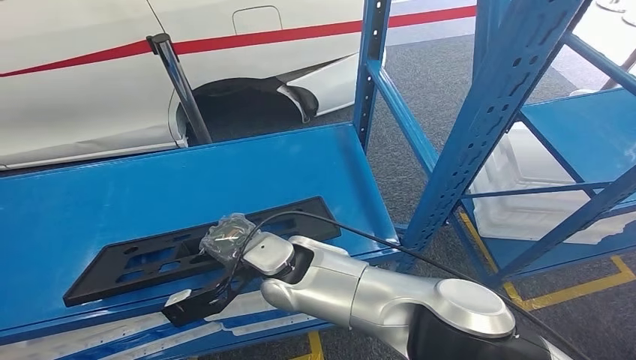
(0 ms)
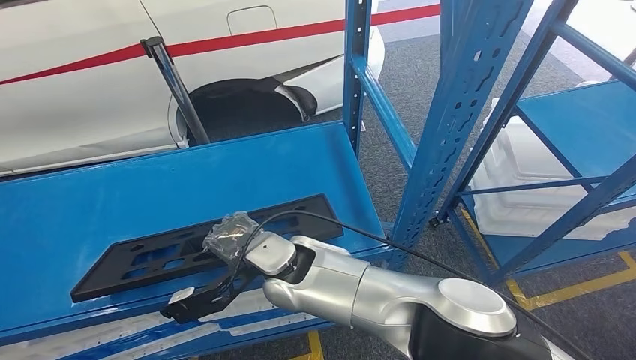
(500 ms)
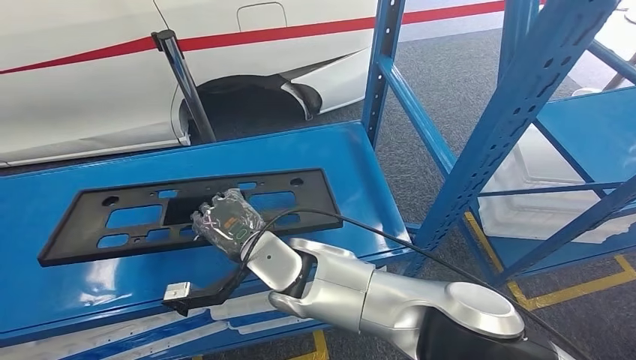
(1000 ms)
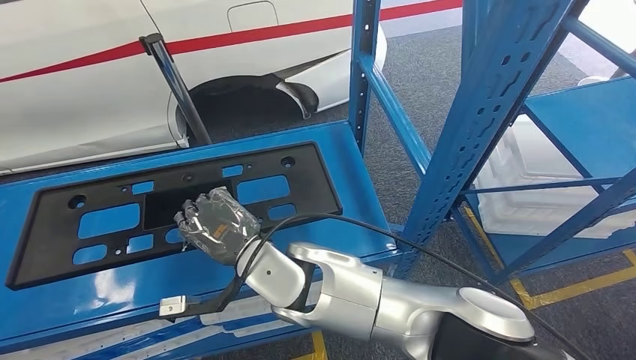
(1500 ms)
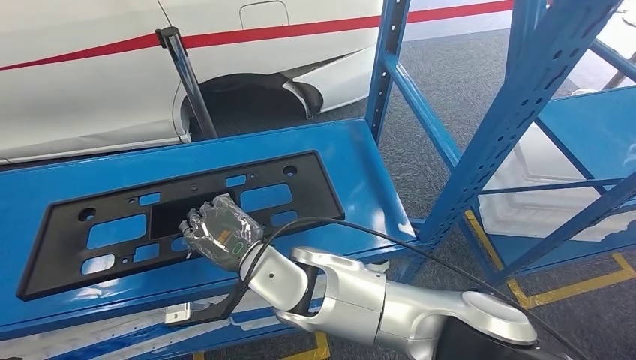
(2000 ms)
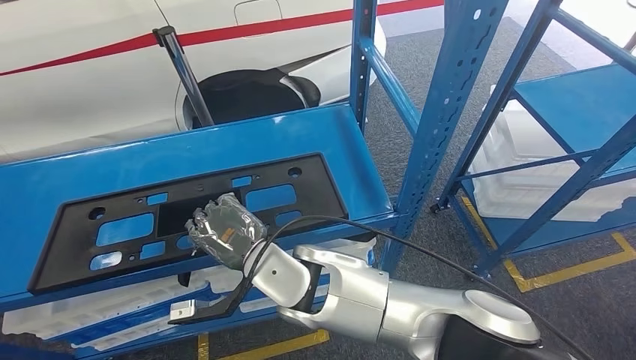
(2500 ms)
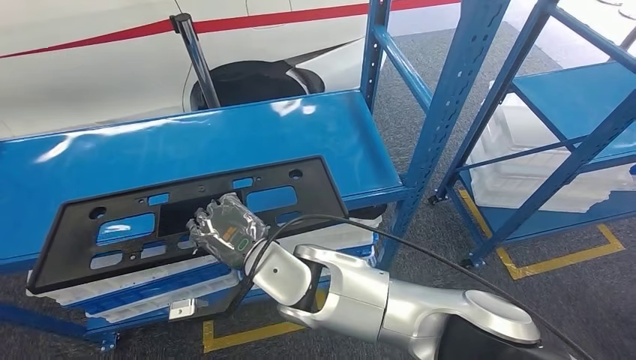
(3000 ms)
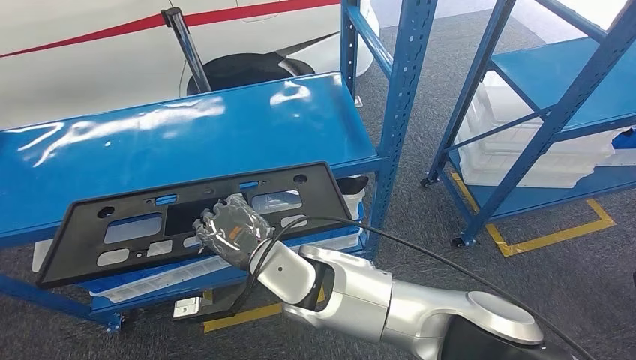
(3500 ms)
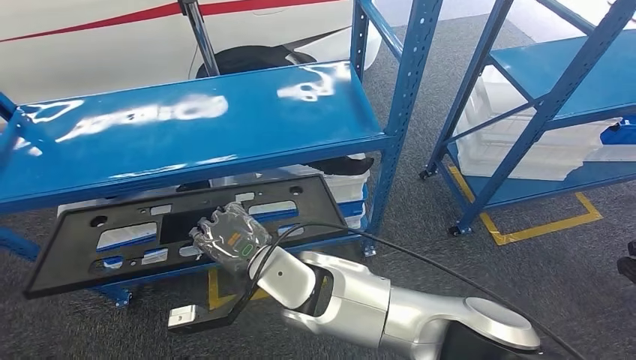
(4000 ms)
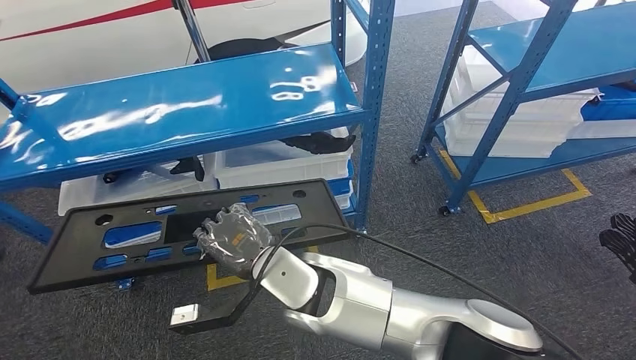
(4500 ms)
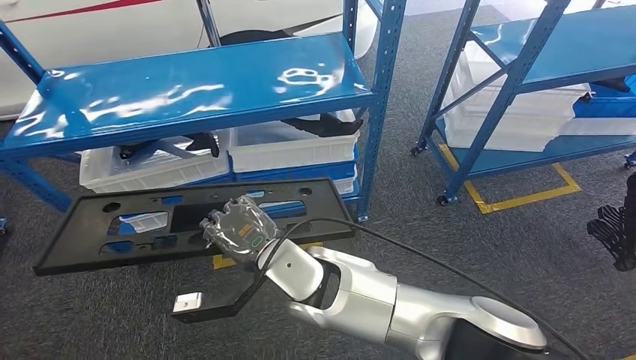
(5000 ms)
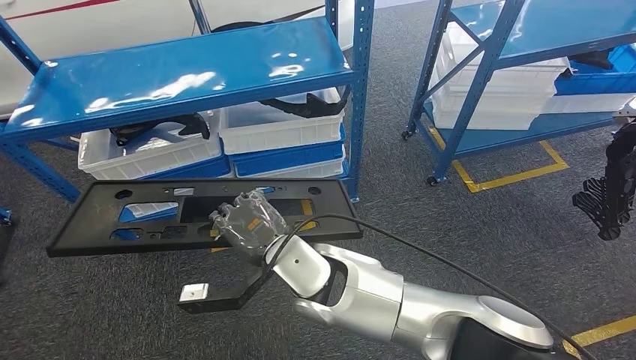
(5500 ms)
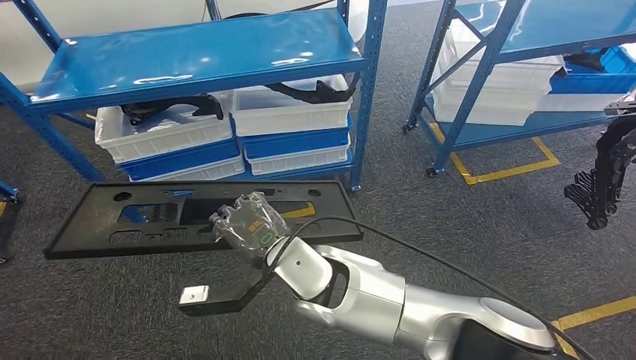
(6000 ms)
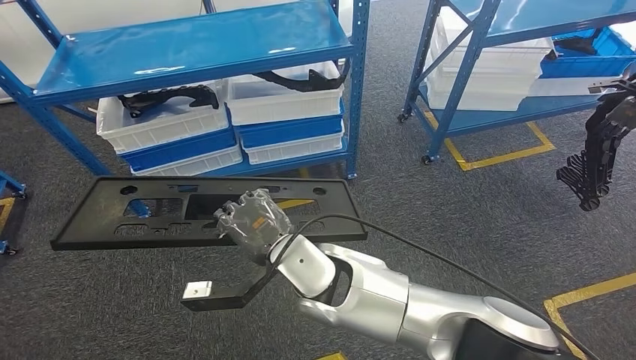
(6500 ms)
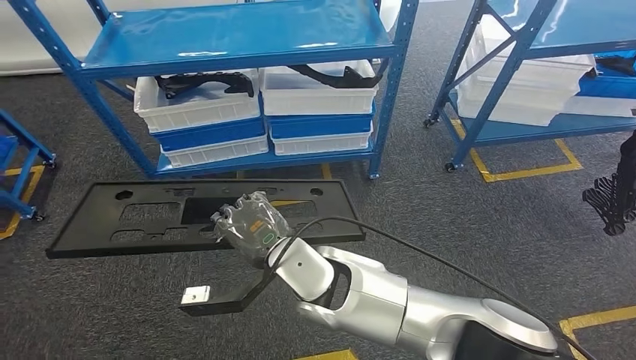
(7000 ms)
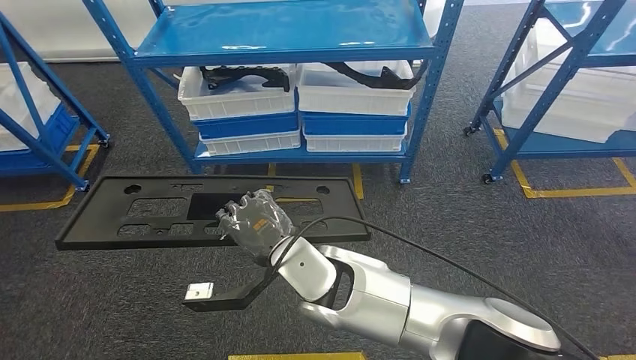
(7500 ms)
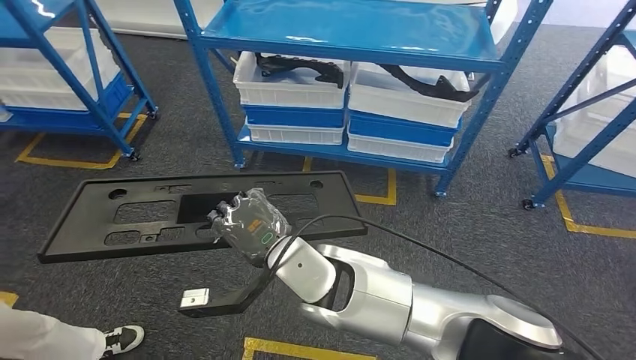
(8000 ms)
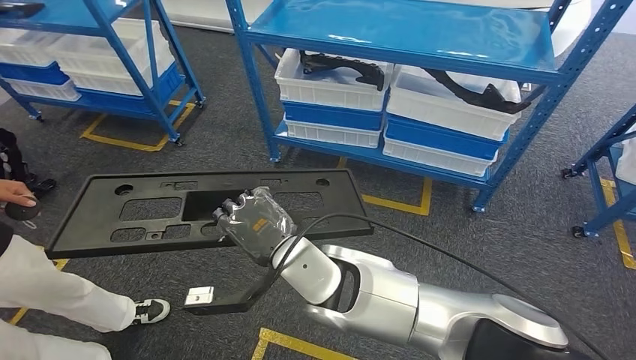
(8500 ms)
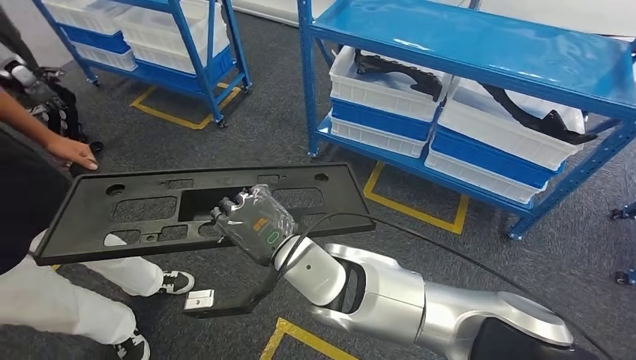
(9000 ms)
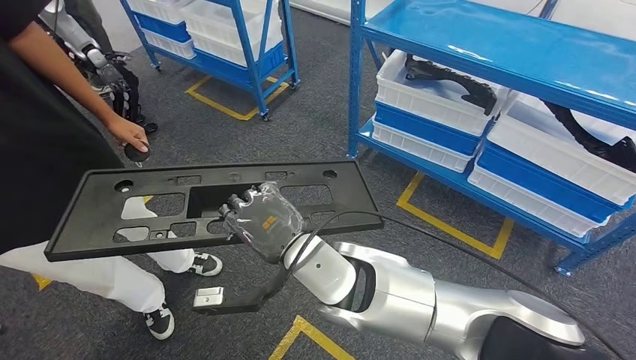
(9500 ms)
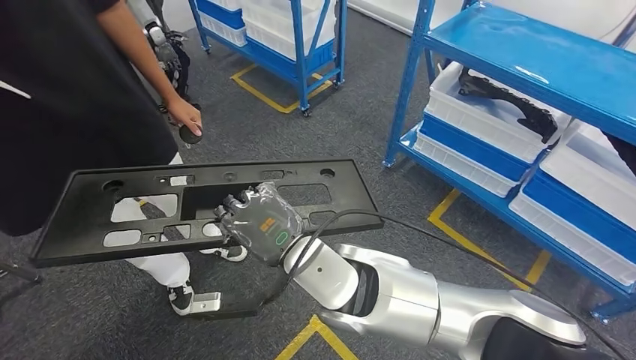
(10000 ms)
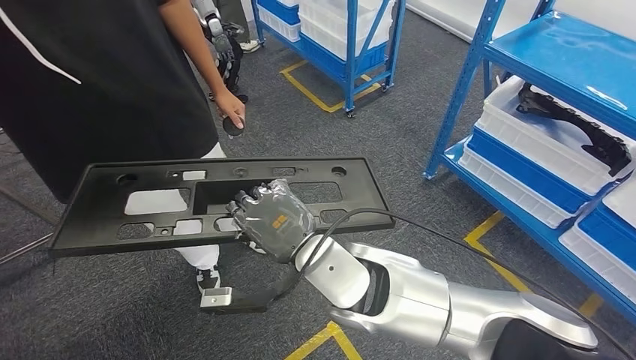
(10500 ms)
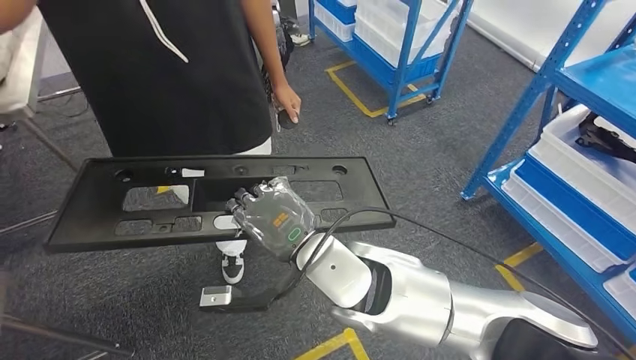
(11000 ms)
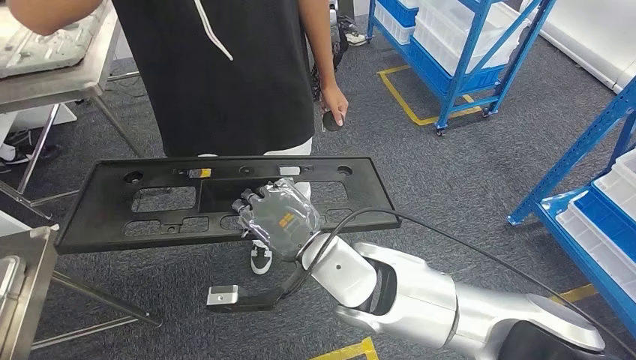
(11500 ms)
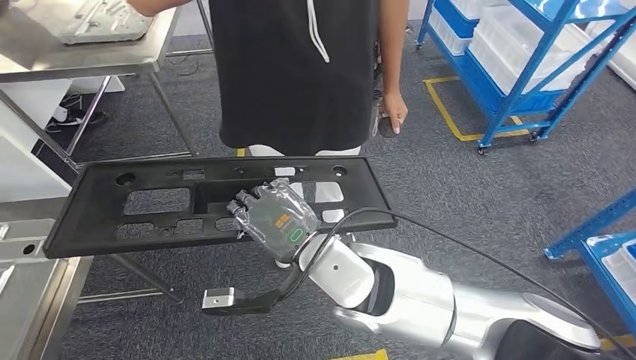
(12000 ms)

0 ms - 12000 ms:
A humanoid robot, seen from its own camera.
Step, 0 ms - 2000 ms: Pick up the large material from the shelf.

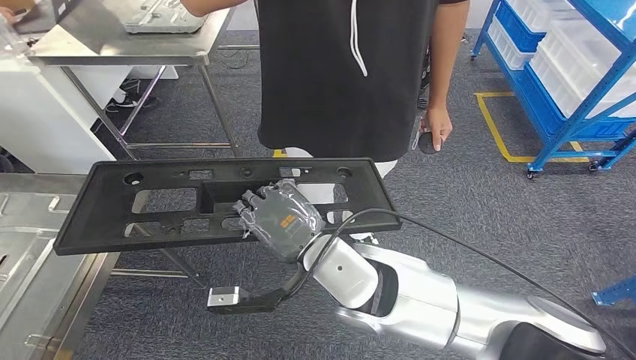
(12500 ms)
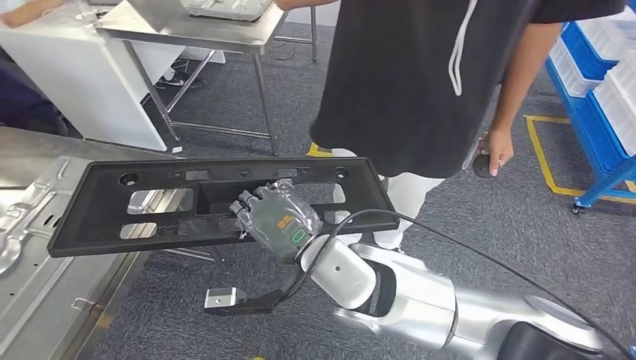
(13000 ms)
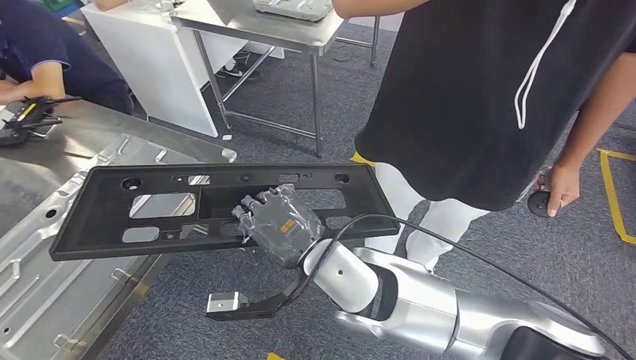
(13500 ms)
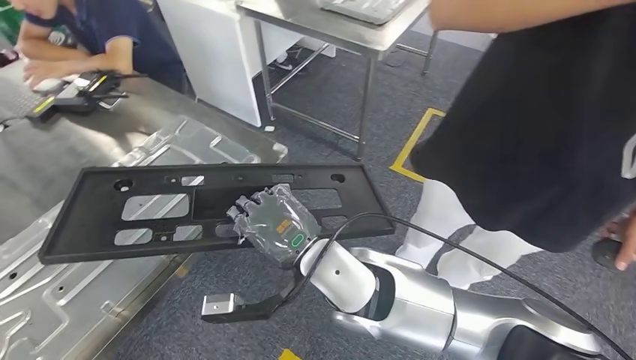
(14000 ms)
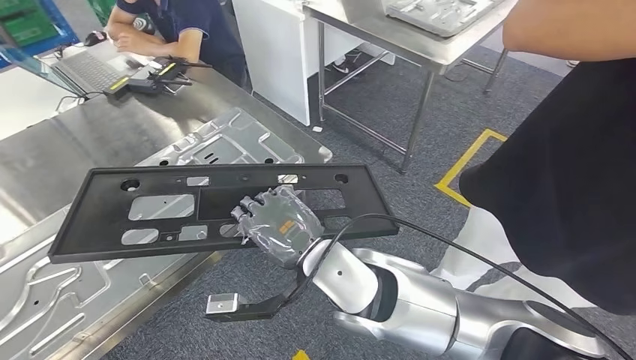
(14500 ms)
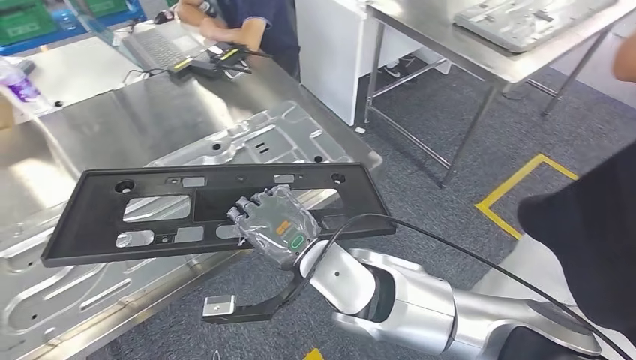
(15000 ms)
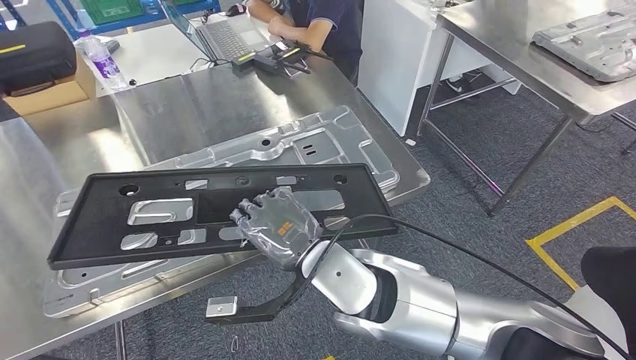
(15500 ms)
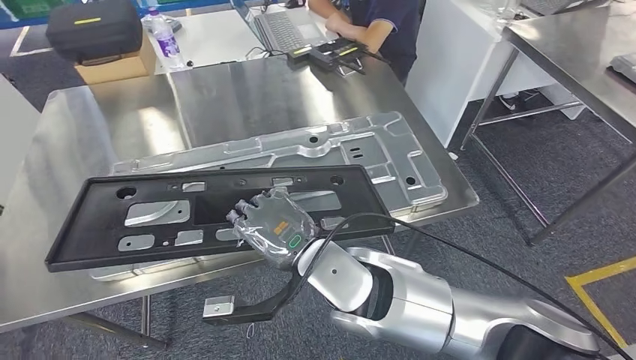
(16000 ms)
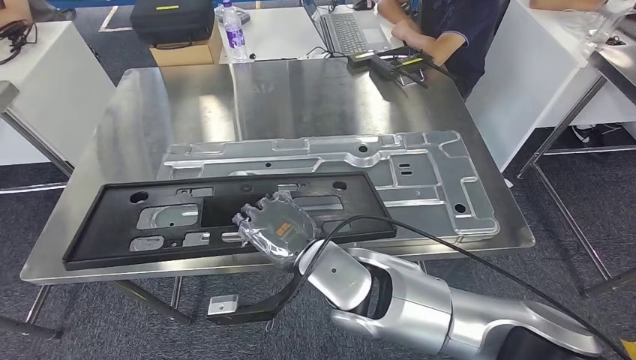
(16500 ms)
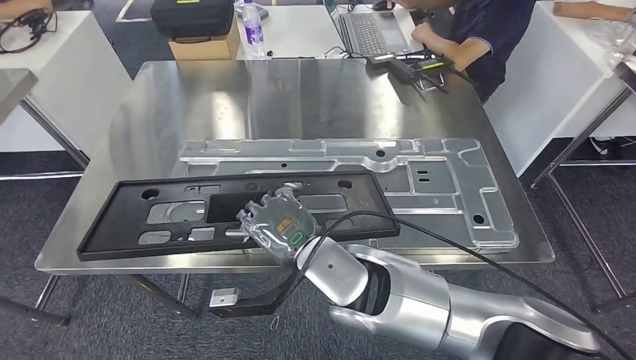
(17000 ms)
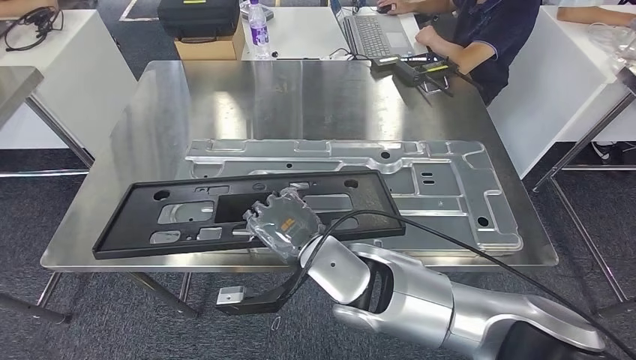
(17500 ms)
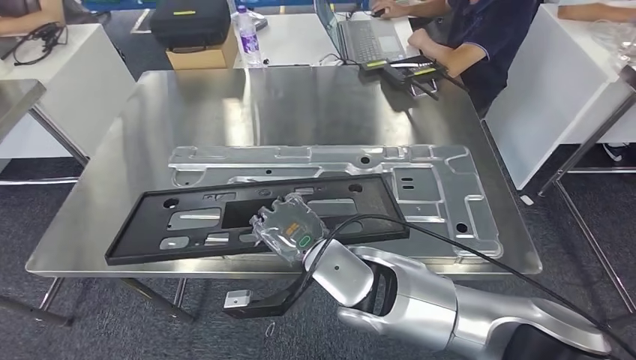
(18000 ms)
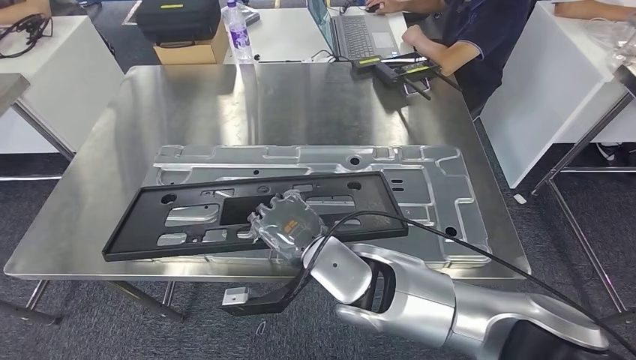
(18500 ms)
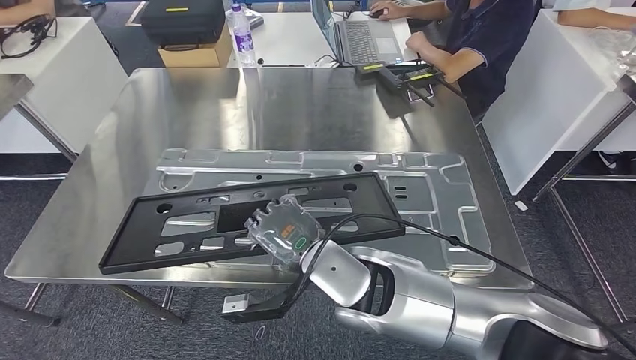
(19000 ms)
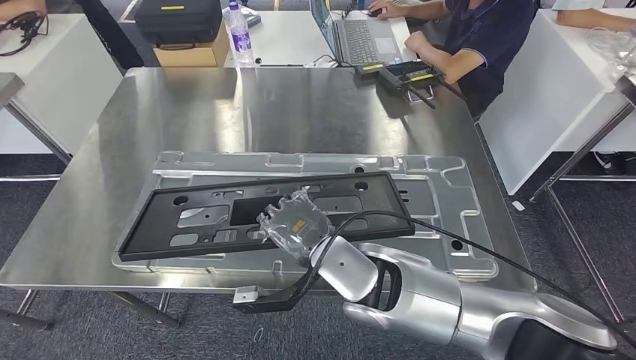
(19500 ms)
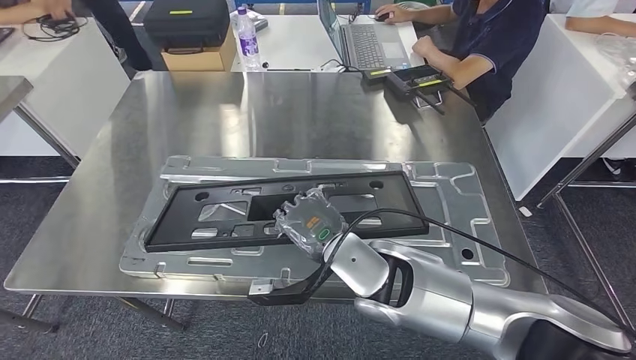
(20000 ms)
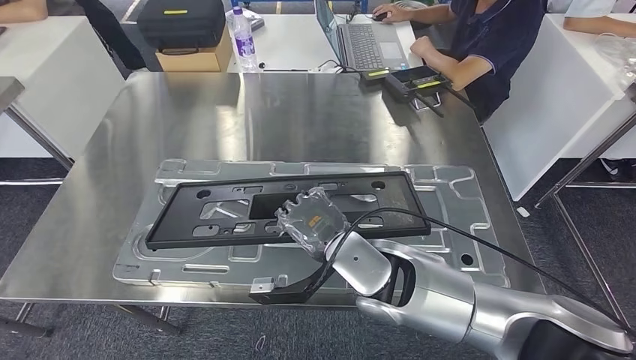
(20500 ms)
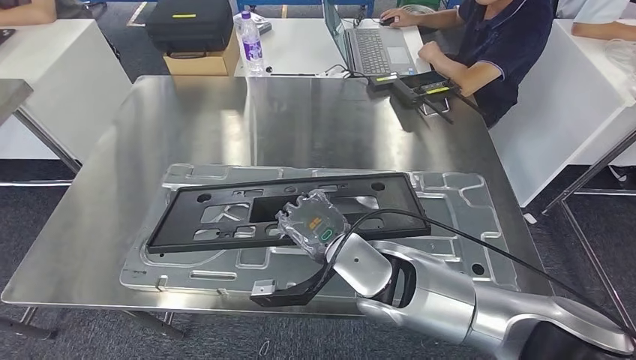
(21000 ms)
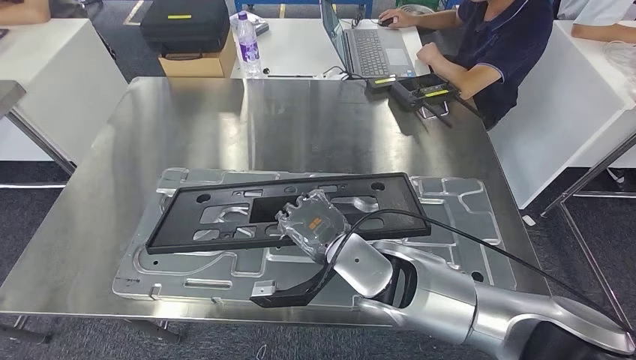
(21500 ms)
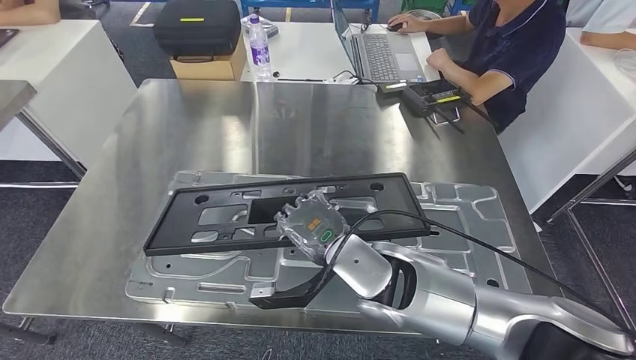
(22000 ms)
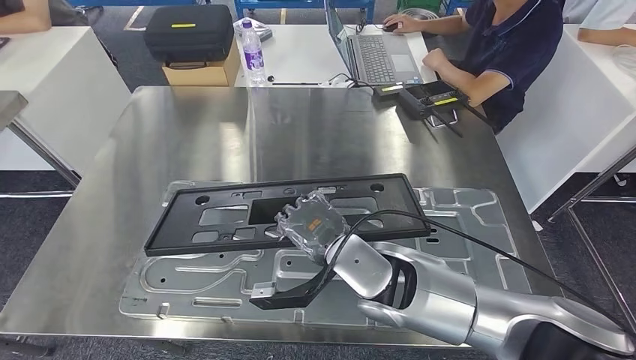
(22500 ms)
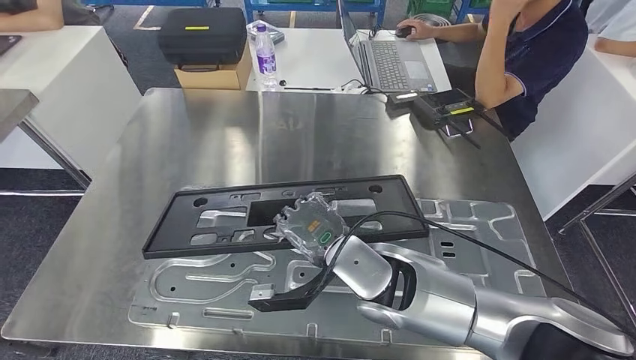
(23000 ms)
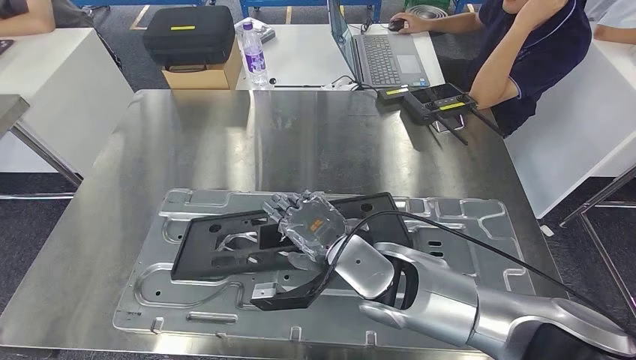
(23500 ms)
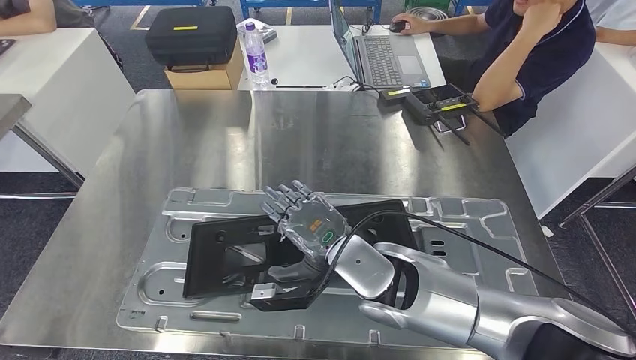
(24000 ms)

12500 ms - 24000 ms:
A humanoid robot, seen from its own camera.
Step, 12500 ms - 14500 ms: Move the large material to the front of the workbench.
Step, 16000 ms - 23500 ms: Insert the large material into the corresponding hole on the workbench.
